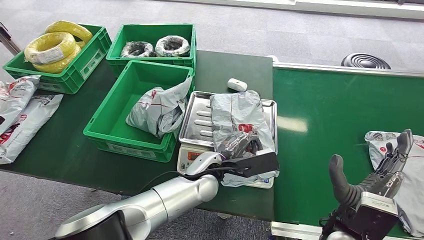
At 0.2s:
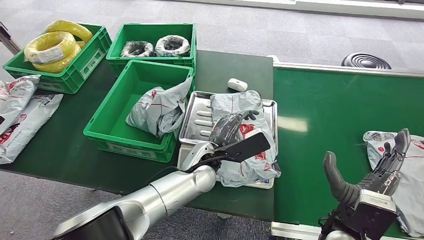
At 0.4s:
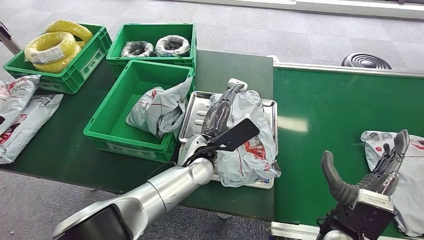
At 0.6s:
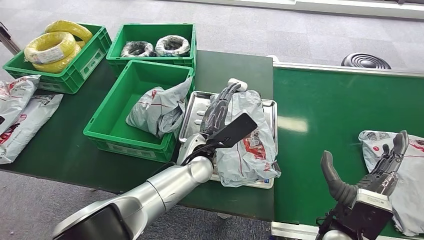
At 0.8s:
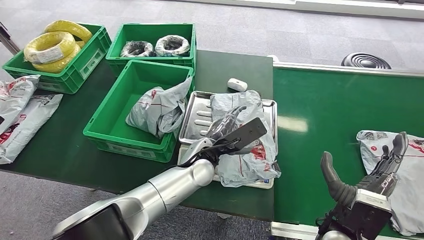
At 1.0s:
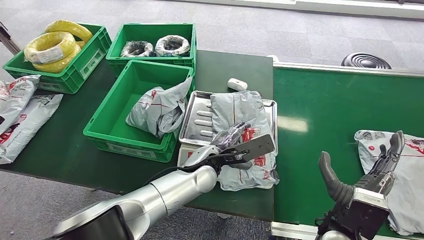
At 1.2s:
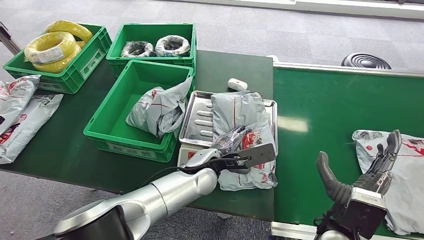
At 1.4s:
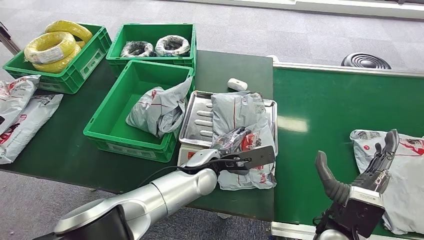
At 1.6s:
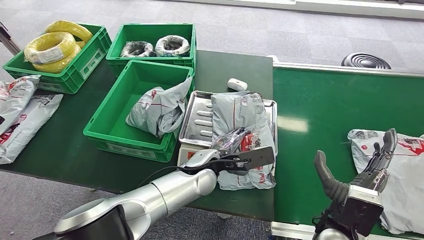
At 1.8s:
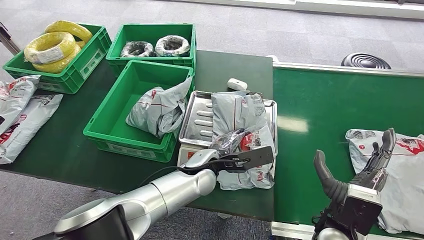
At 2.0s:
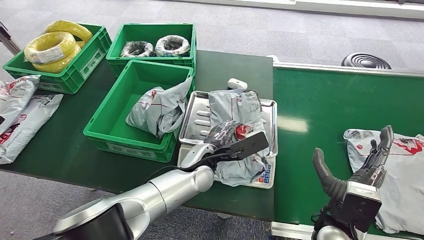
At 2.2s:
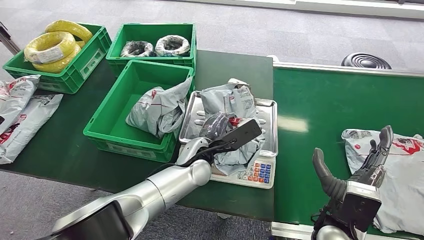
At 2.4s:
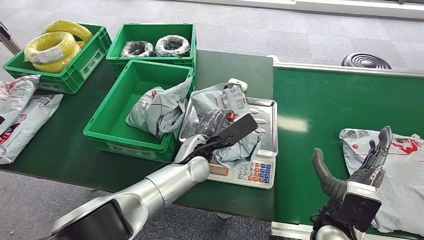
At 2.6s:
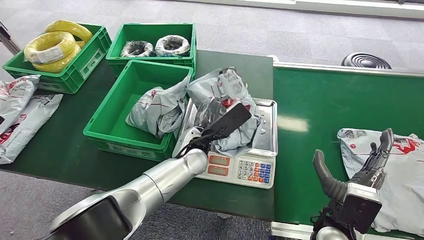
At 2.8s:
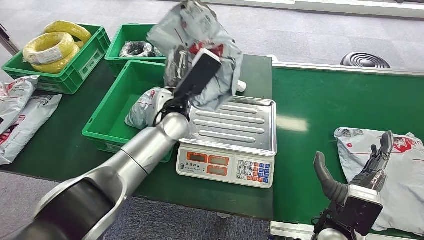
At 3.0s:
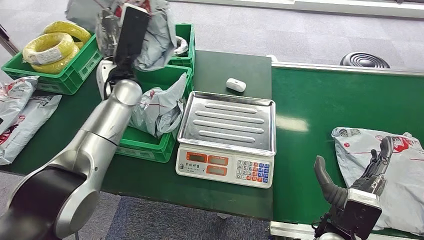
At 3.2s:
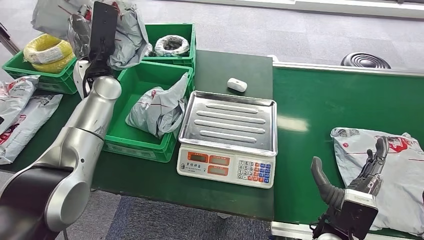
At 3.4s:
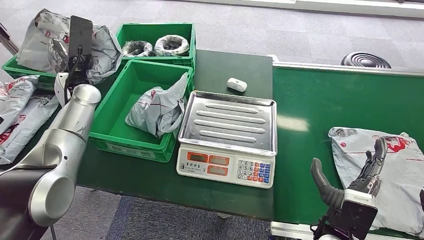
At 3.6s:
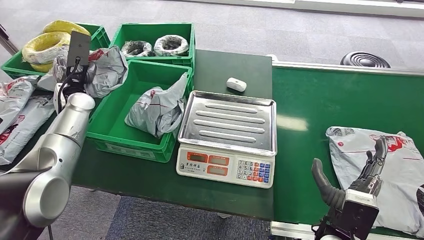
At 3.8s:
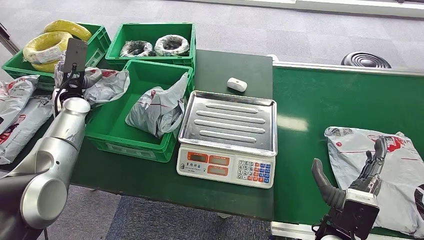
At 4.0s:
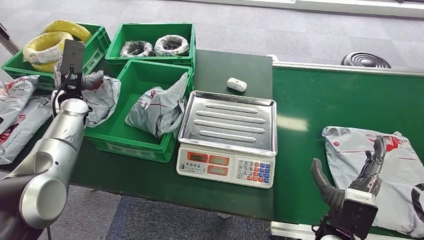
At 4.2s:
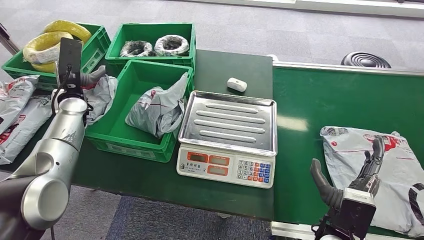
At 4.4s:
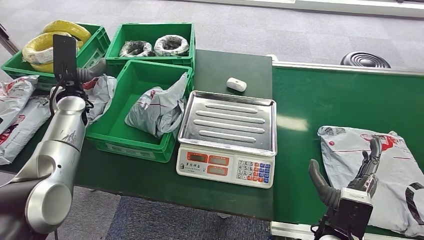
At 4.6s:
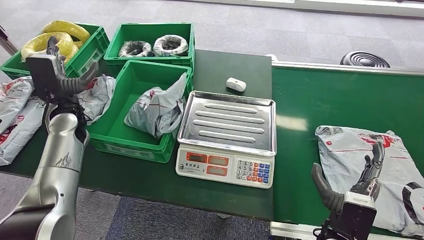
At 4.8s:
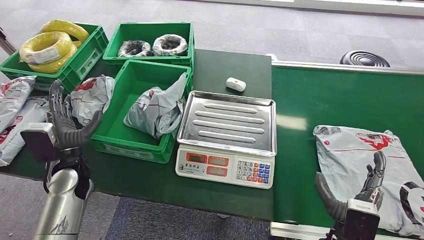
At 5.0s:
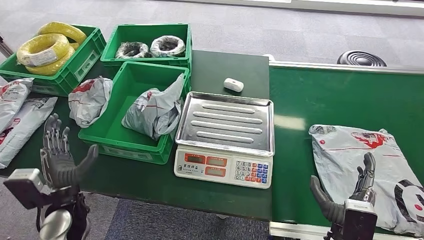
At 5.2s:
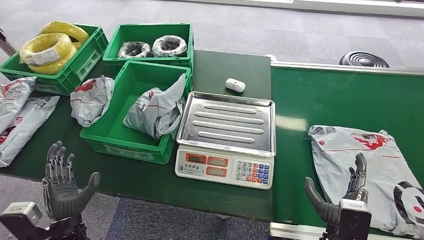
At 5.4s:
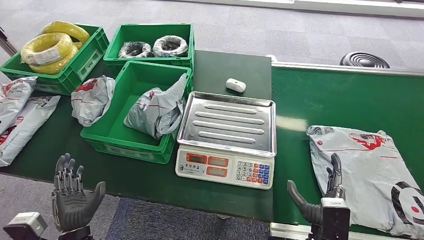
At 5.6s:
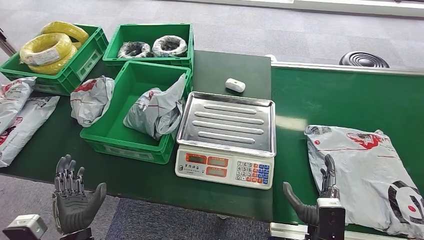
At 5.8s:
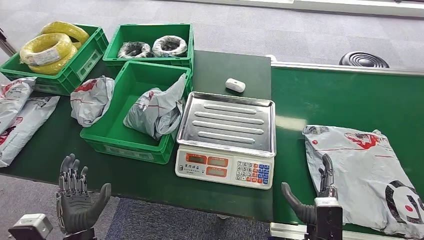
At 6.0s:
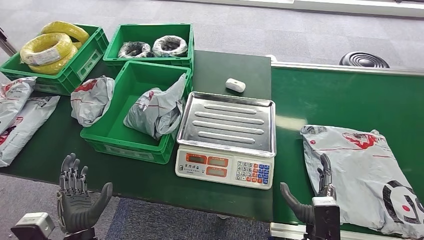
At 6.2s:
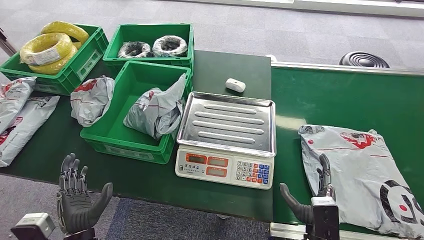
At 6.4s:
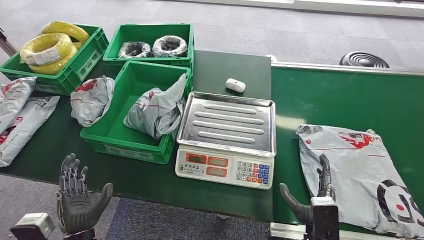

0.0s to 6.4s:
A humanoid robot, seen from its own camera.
Step, 0.0s to 3.0s: Pick up the package from the inbound machine.
Step, 3.2s to 6.2s: Place the package into the parcel locker.
